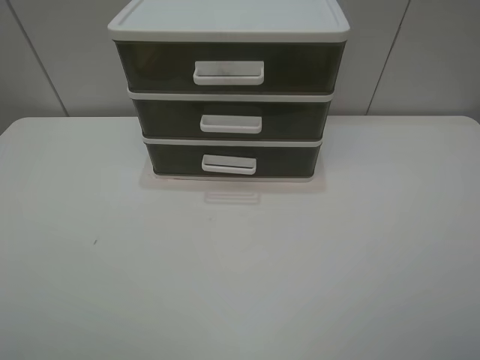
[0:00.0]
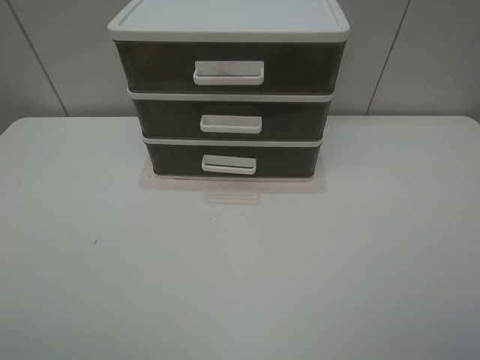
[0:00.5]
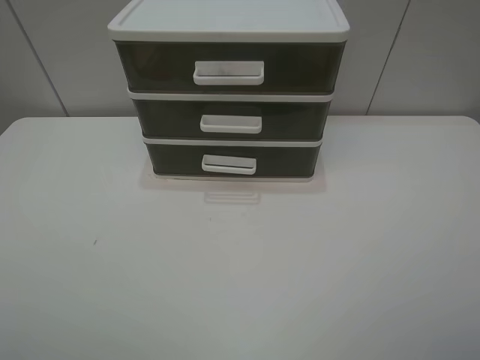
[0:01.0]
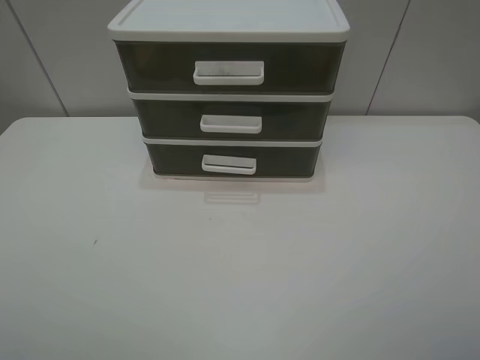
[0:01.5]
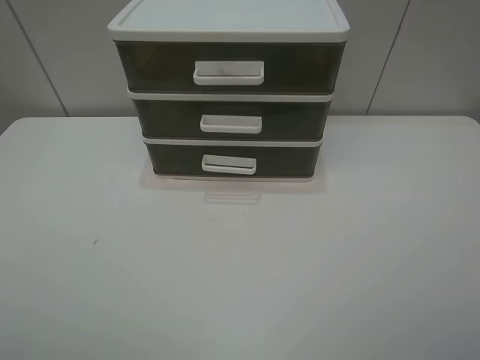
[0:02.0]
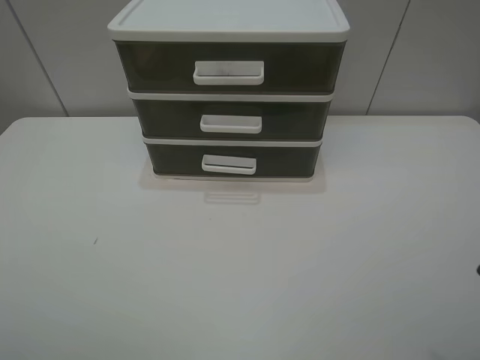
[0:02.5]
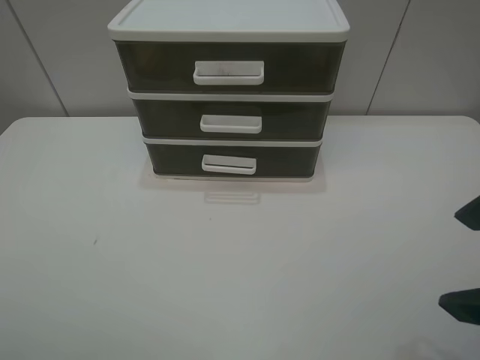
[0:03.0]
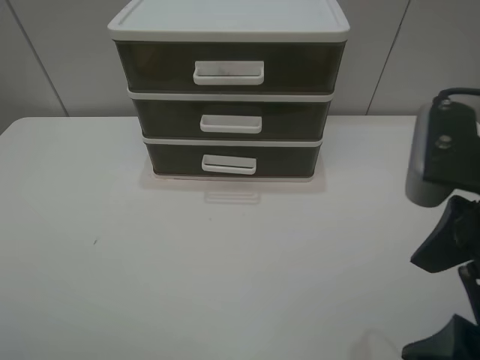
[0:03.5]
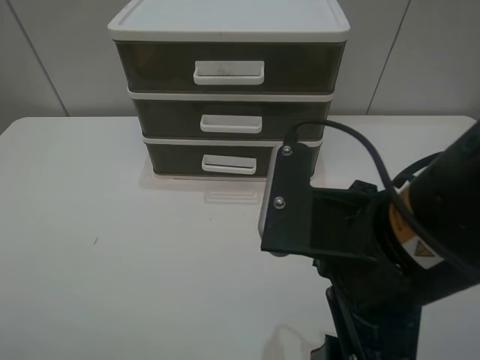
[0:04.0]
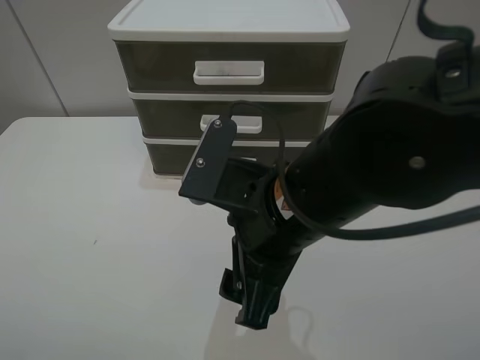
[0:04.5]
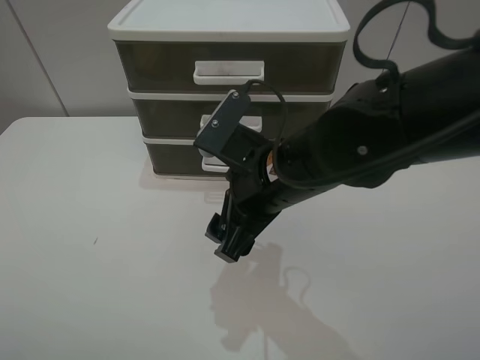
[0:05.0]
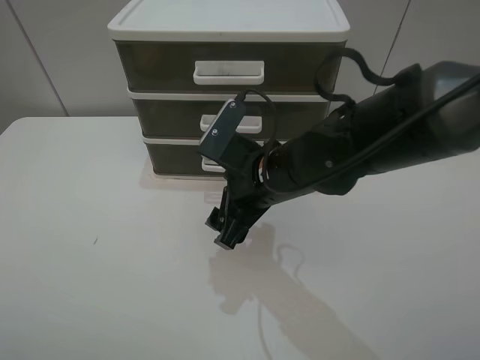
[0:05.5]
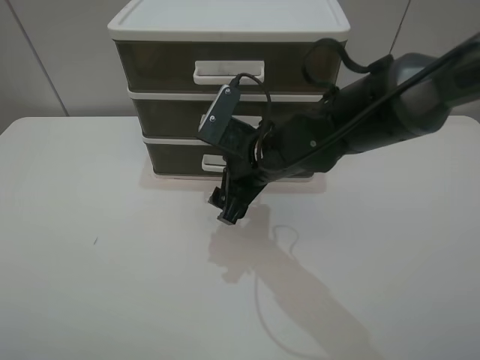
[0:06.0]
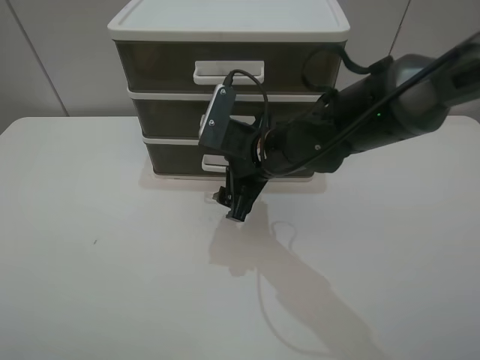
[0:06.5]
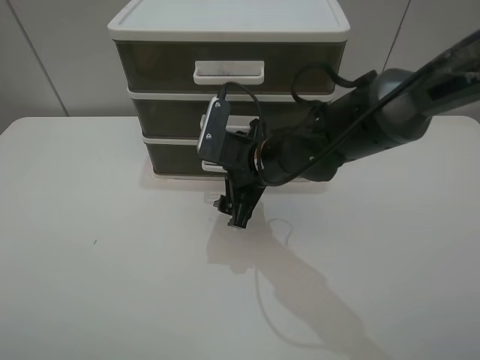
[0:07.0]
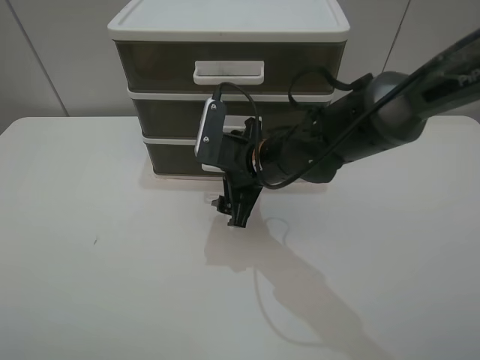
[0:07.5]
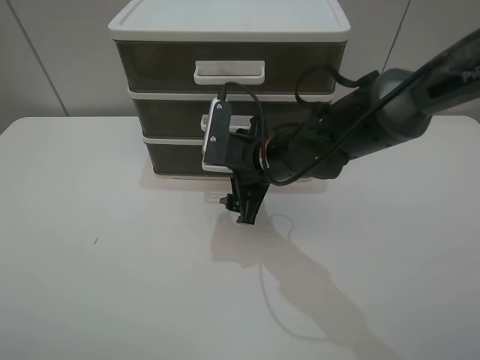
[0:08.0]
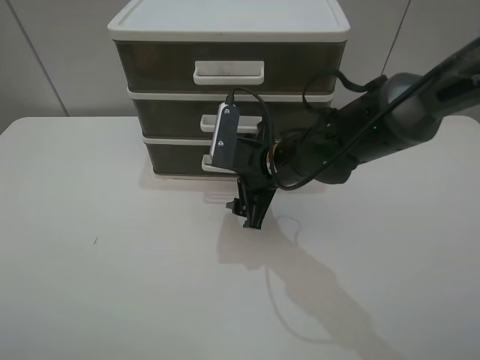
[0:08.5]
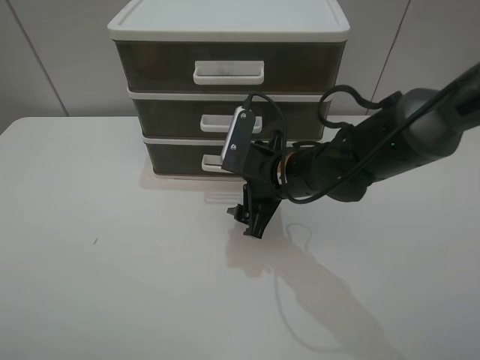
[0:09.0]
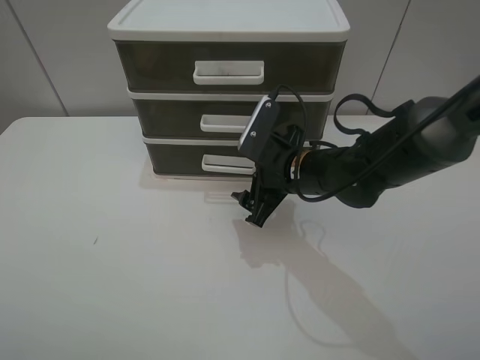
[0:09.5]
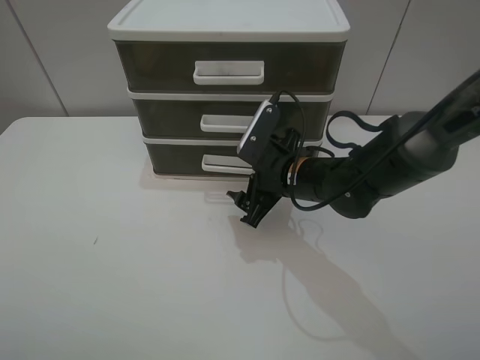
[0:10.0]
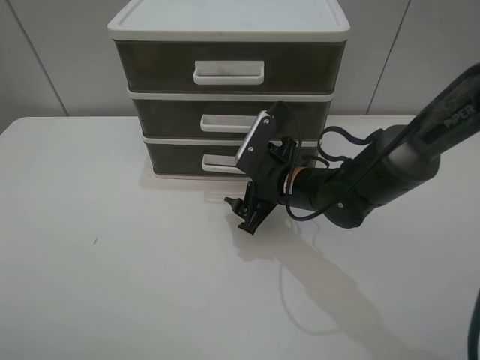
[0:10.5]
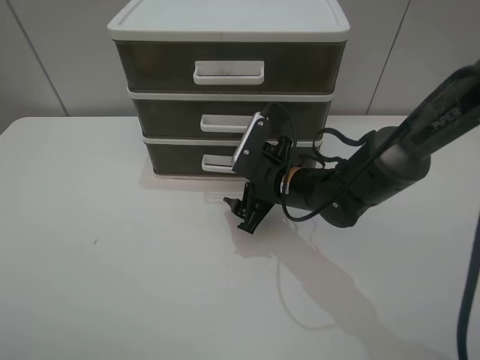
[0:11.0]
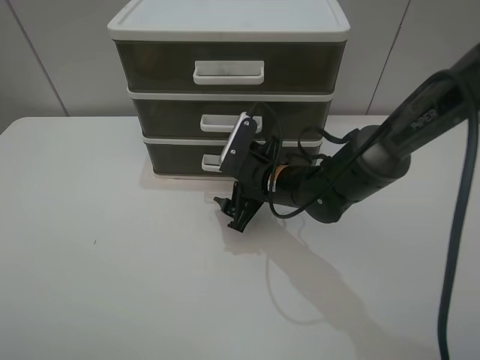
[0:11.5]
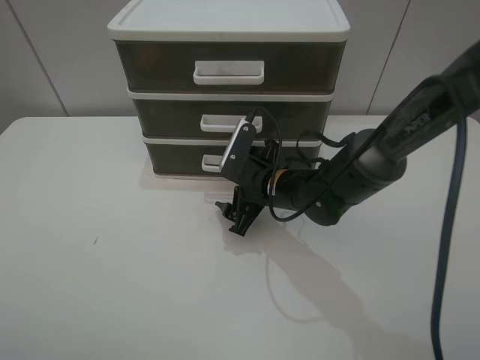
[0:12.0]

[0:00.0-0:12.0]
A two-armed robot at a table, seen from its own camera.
Task of the whole recording: open the bottom drawer.
0:02.0 to 0:04.0: The right gripper goes roughly 20 cm to the left and forward.
0:04.0 to 0:06.0: The right gripper heads forward and downward, covering some 20 cm.
0:06.0 to 0:08.0: The grippers move only a little.
0:10.0 to 0:12.0: The grippers make only small movements.

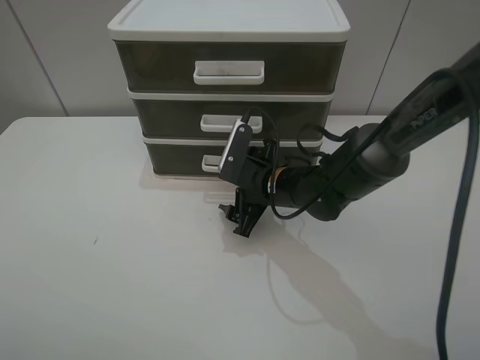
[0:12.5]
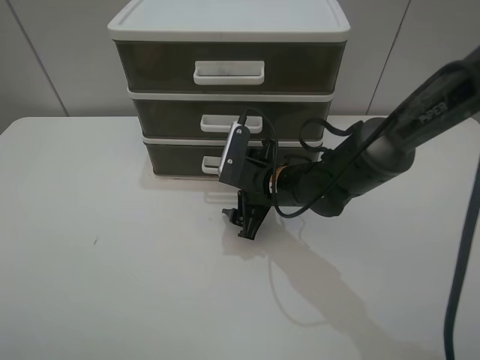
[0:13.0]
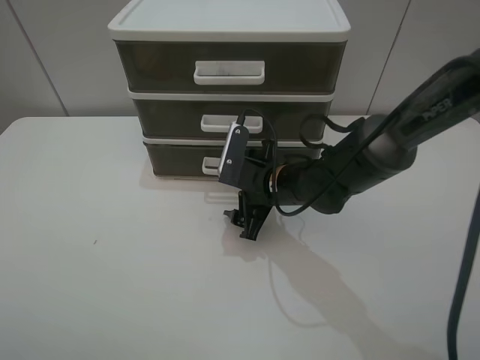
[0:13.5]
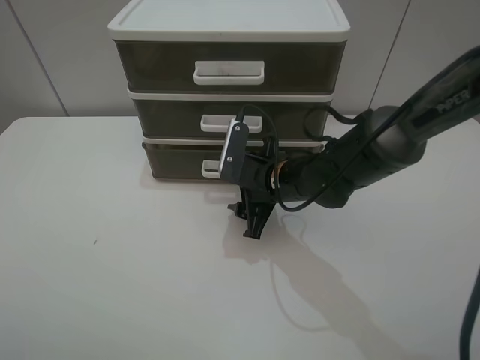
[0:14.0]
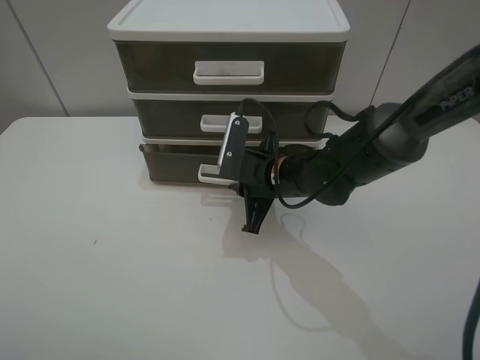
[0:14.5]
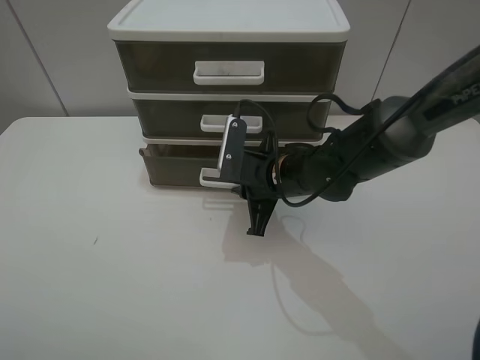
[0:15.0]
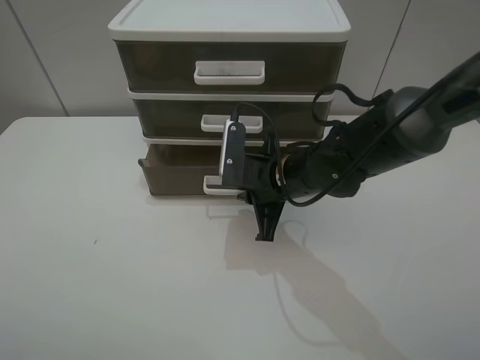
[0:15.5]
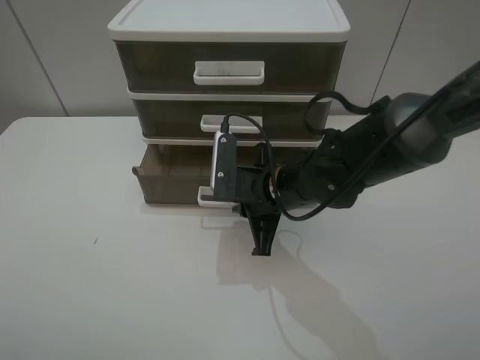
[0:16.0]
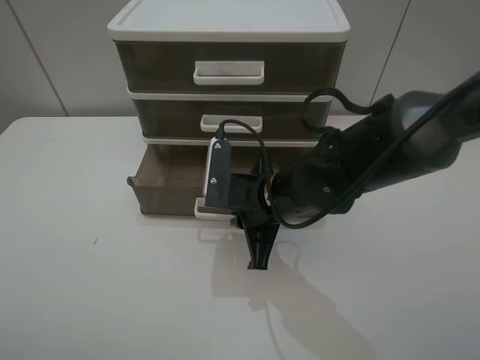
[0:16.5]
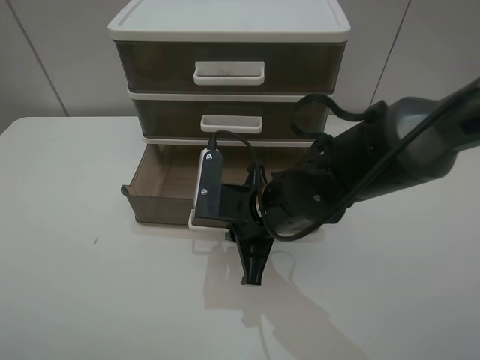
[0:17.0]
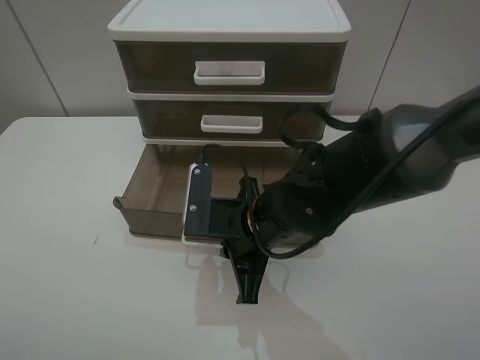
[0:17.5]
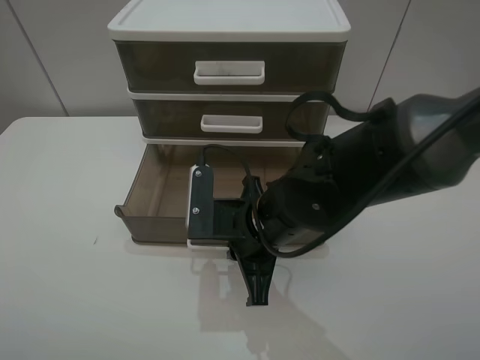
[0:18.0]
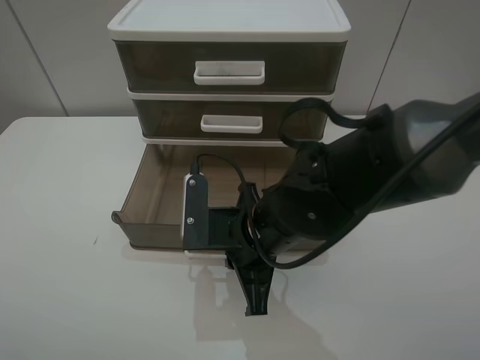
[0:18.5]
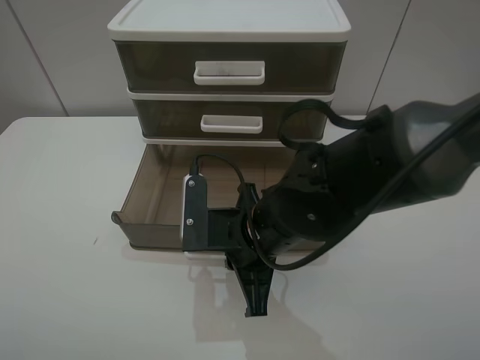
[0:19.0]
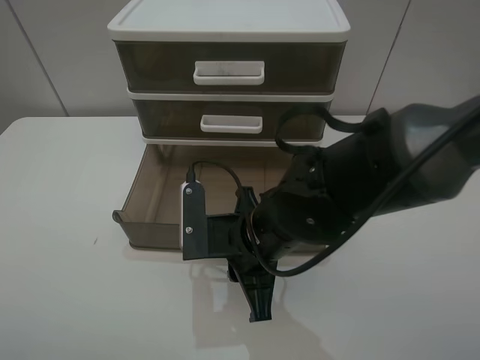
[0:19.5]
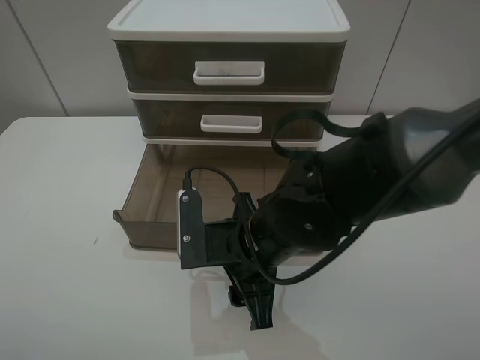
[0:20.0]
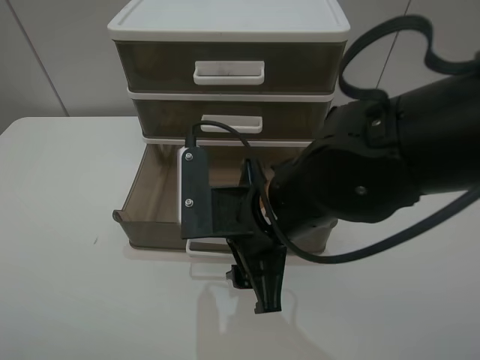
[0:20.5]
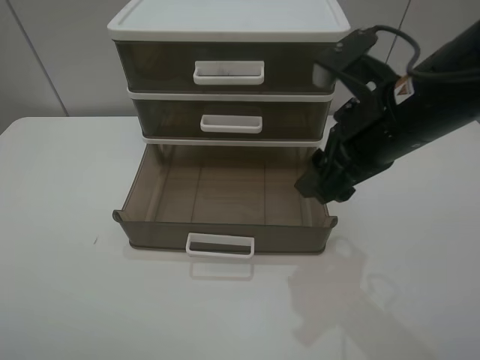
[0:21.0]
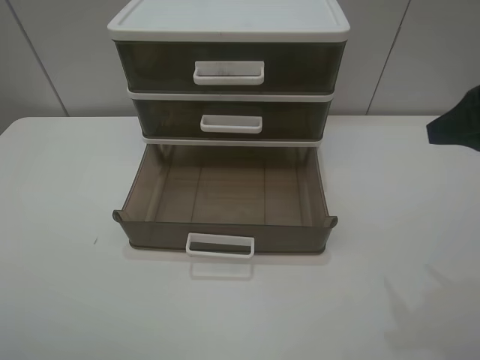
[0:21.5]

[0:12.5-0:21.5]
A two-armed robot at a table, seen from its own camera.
Task of the whole recording: open the bottom drawer.
Step, 0:14.5 to 0:20.0: Pull open the drawer with the right gripper.
0:12.5 to 0:14.5: The right gripper closes its fingers.
0:14.5 to 0:17.0: The right gripper travels backward by some 5 cm.
0:17.0 to 0:19.5: The right gripper opens.
0:19.5 to 0:21.5: The right gripper is displaced to the right and upward by approximately 30 cm, and opens up.
